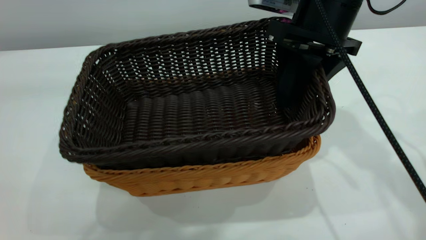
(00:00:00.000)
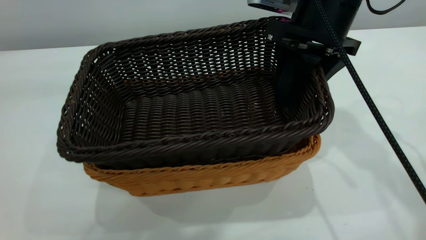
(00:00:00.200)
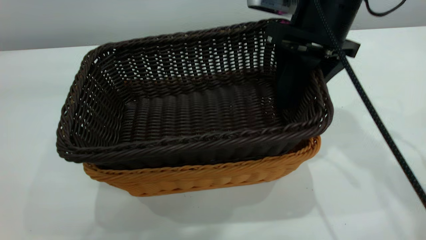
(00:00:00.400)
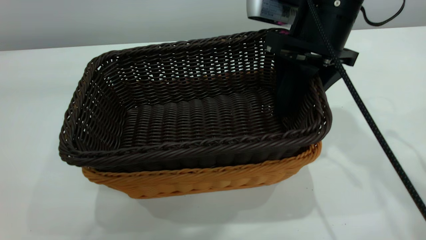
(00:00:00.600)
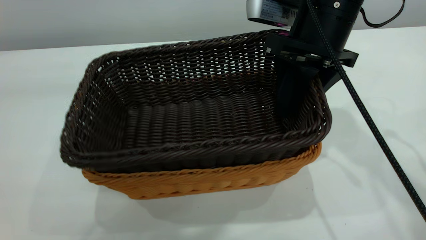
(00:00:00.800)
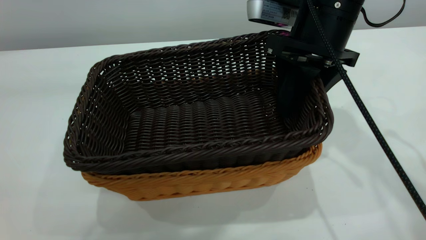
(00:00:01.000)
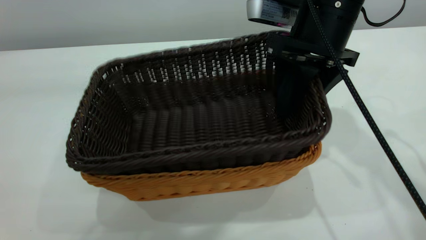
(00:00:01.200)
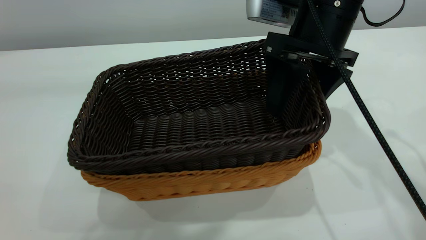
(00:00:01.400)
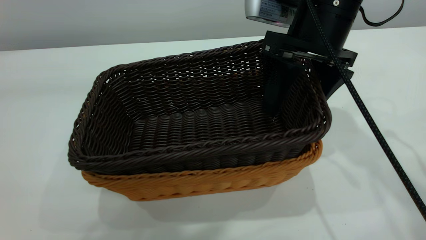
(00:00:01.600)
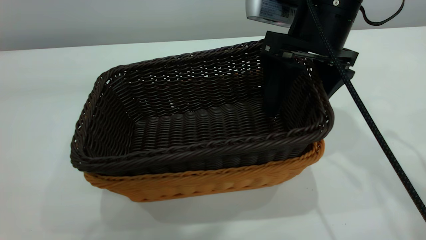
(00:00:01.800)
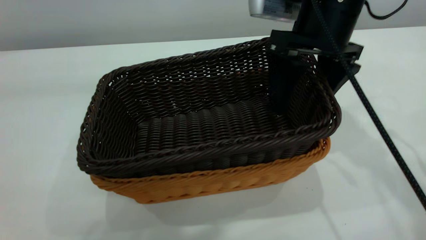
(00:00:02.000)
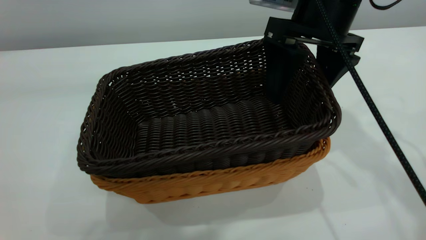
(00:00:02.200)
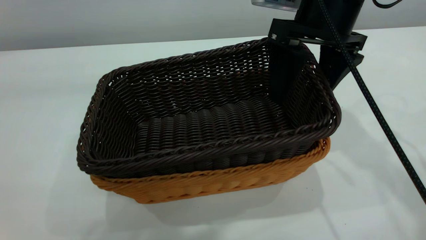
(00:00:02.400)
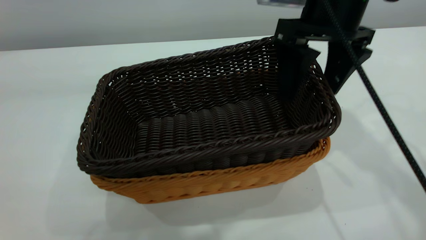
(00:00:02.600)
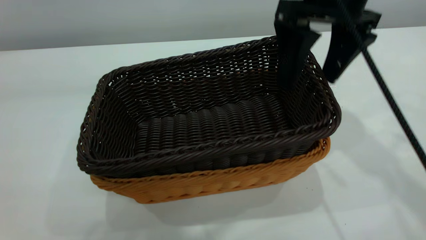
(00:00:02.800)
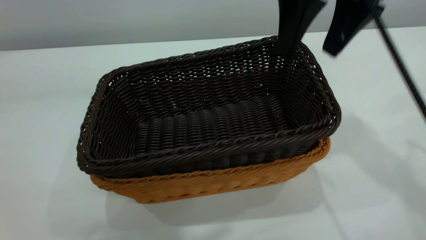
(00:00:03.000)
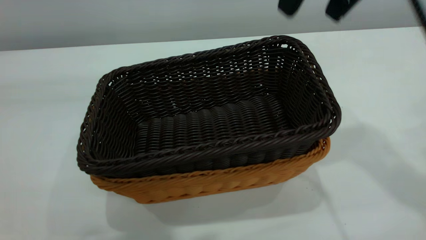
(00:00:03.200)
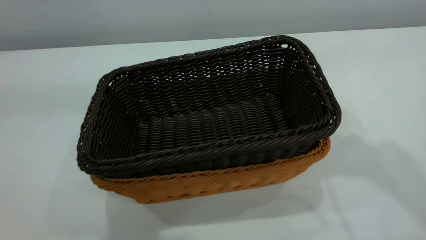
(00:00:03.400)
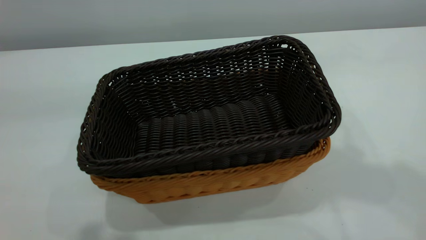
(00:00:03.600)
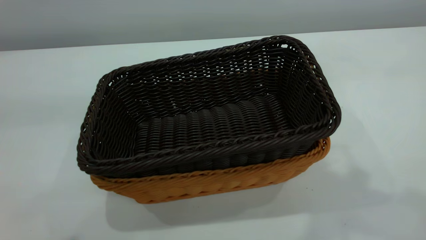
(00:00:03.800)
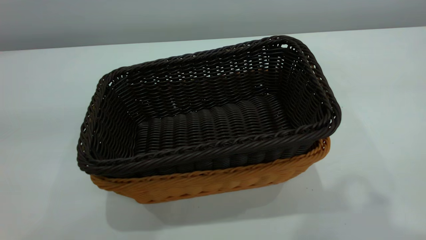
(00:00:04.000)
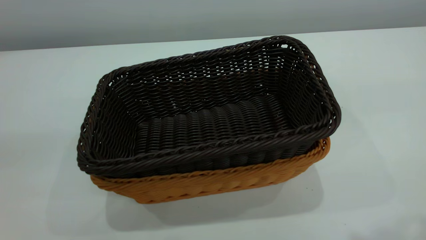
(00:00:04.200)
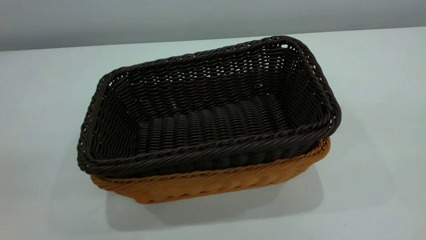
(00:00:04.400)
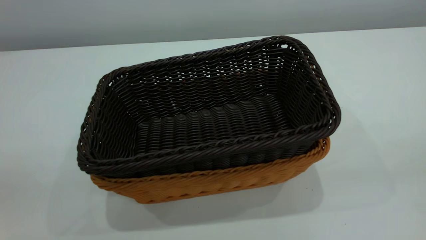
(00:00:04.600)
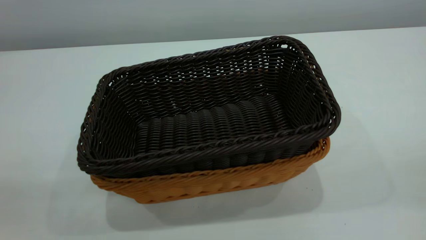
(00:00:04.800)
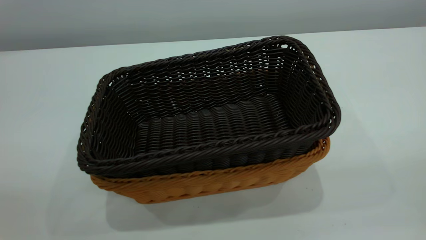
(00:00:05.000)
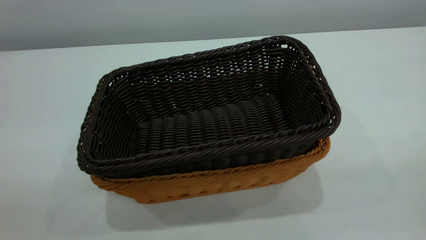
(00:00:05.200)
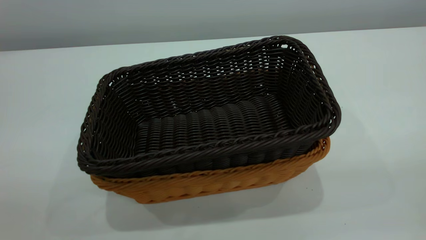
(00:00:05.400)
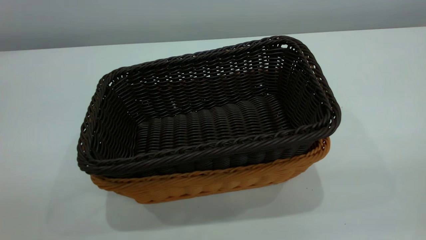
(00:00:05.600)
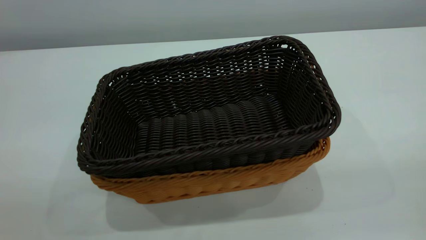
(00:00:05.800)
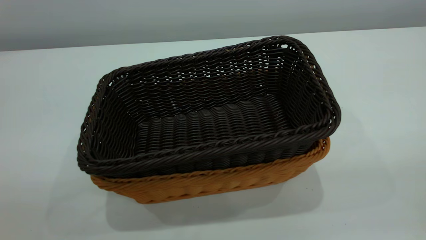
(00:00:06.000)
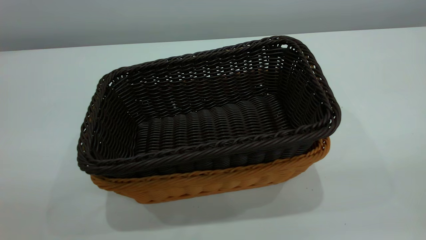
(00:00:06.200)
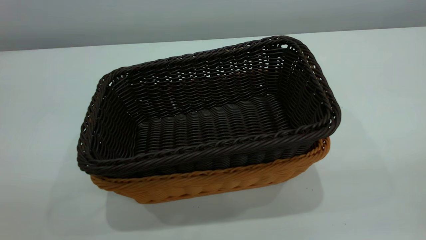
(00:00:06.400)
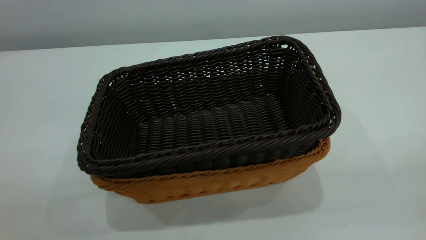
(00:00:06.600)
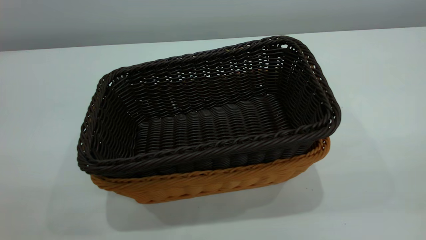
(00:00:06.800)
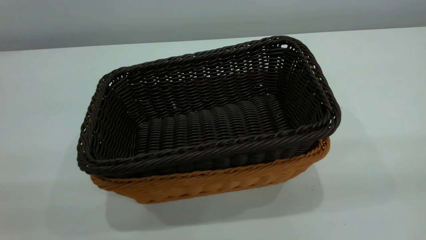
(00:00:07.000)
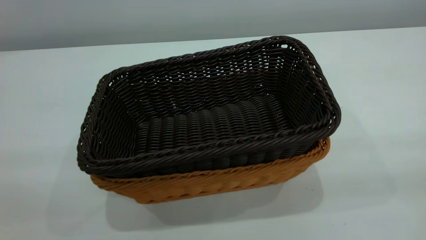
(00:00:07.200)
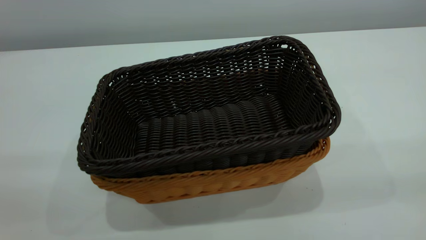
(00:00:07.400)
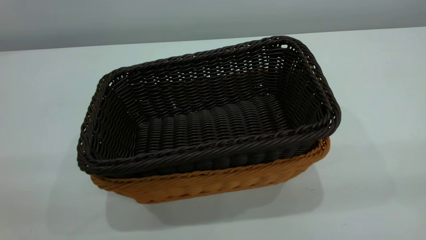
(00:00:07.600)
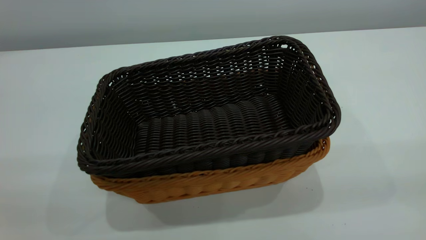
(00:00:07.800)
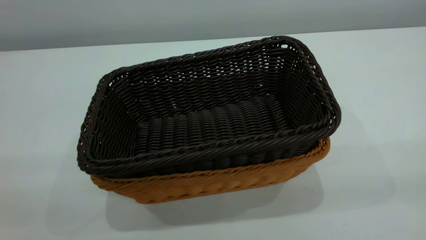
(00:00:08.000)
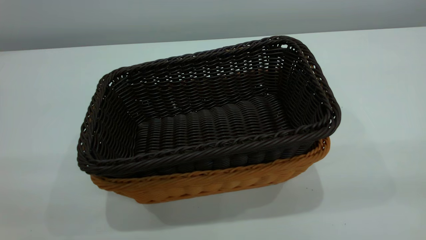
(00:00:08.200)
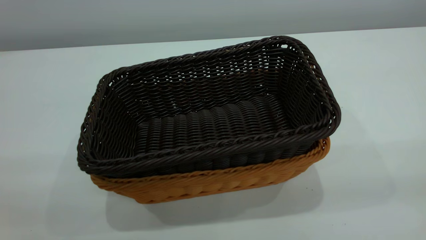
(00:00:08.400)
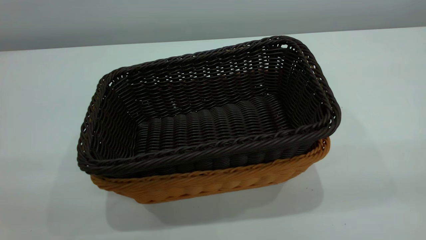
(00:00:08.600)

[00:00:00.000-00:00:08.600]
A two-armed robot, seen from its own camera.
Task of the whole recording: the left gripper grasp the brown basket and place it in the center of the table, the right gripper grasp the black basket and place it inside the brown one.
Step, 00:00:00.000 to 00:00:03.000: Place the dark basket on top of the light basket.
00:00:00.000 to 00:00:01.400: The right gripper opens.
00:00:01.400 to 00:00:02.800: The right gripper shifts roughly 5 cm upward.
00:00:02.800 to 00:00:04.400: The right gripper goes roughly 30 cm backward and upward, and closes up. Meanwhile the left gripper is displaced backward, to the left and downward by roughly 20 cm, and closes.
